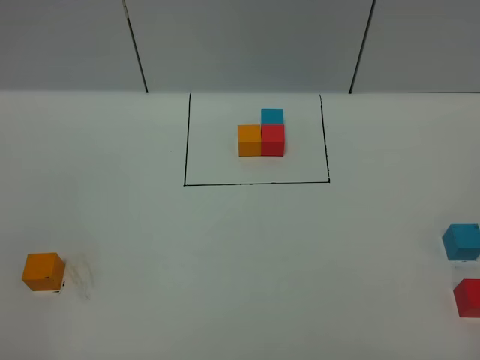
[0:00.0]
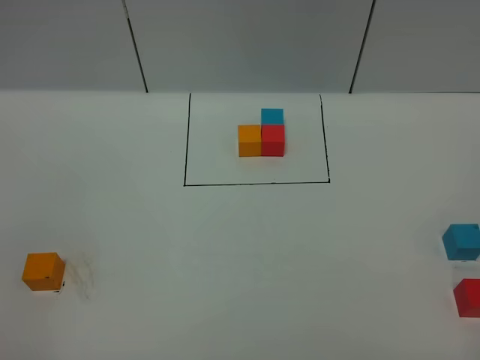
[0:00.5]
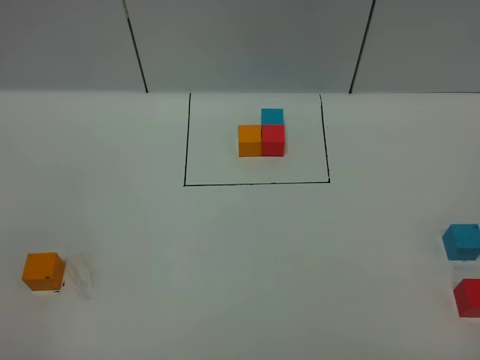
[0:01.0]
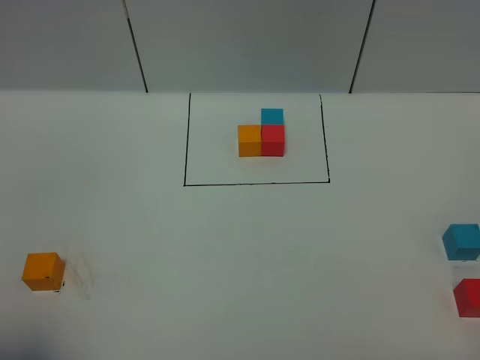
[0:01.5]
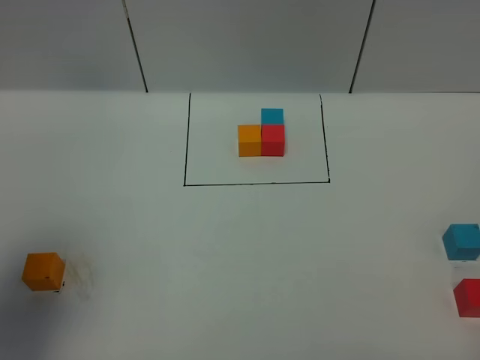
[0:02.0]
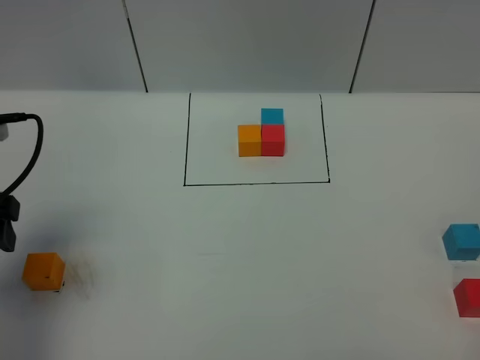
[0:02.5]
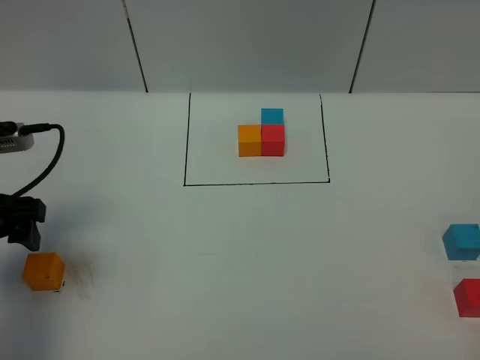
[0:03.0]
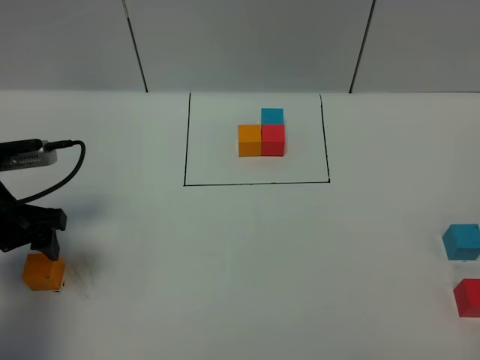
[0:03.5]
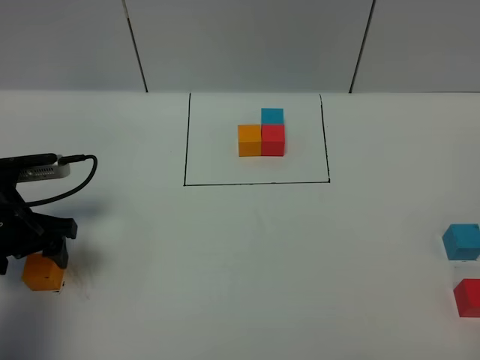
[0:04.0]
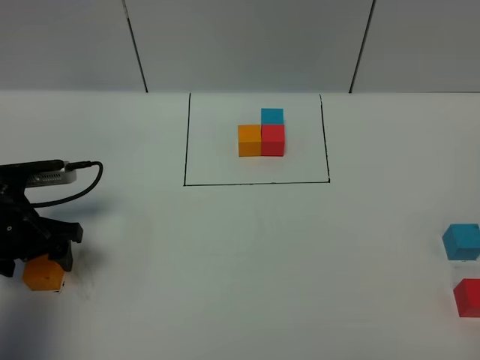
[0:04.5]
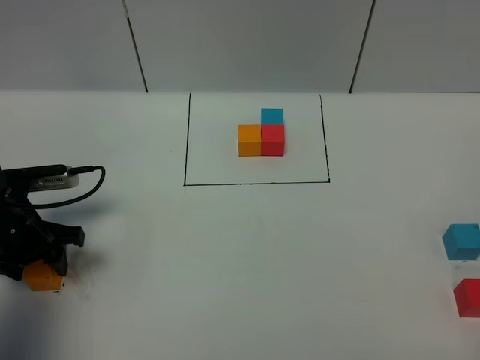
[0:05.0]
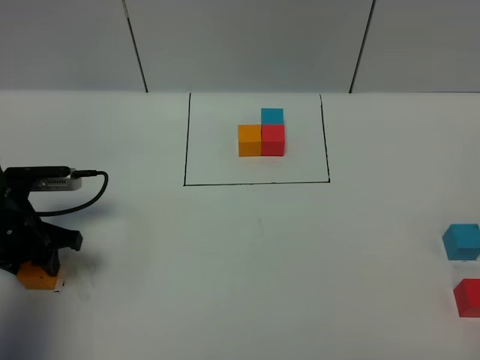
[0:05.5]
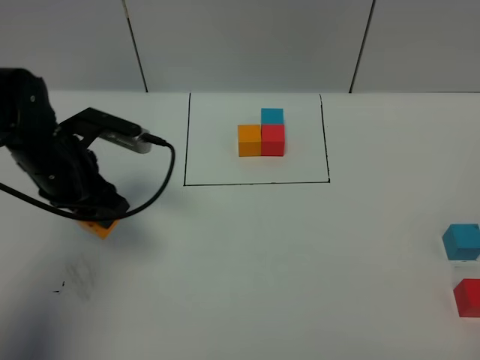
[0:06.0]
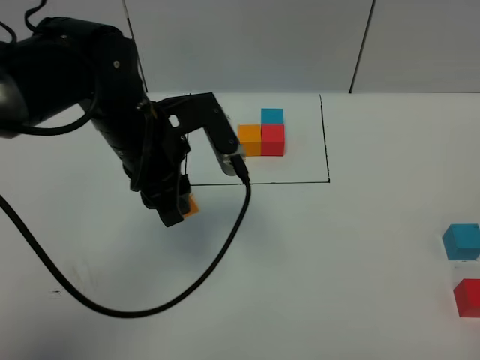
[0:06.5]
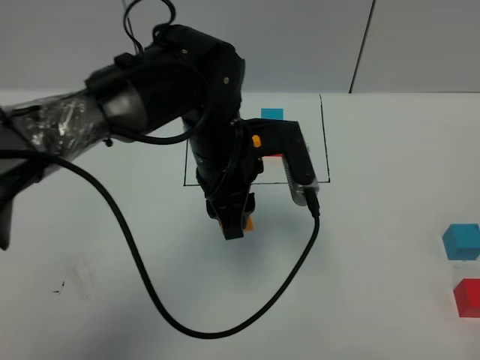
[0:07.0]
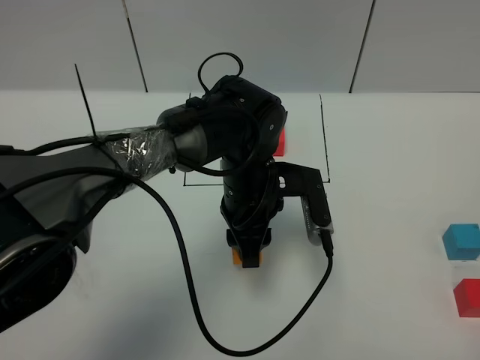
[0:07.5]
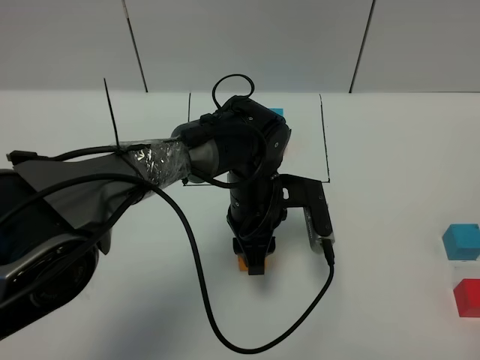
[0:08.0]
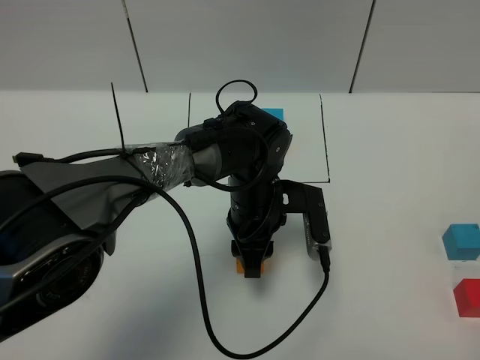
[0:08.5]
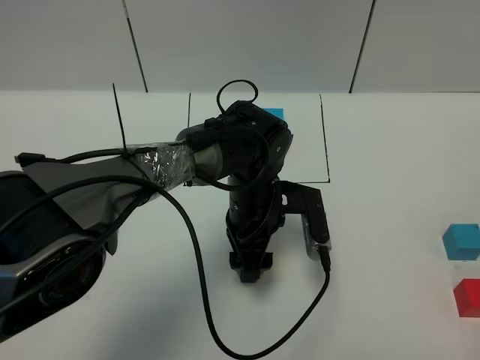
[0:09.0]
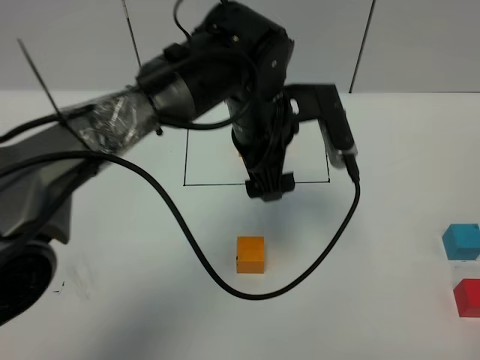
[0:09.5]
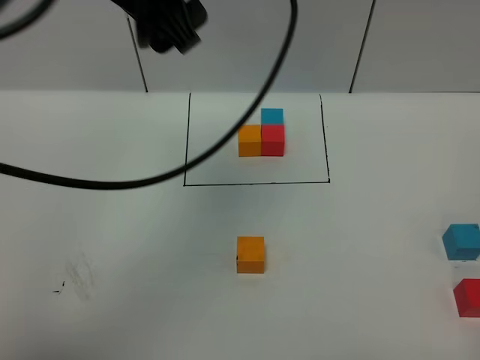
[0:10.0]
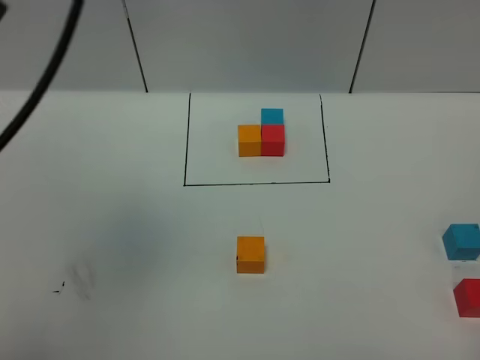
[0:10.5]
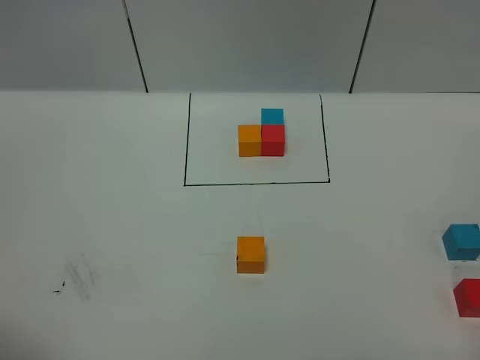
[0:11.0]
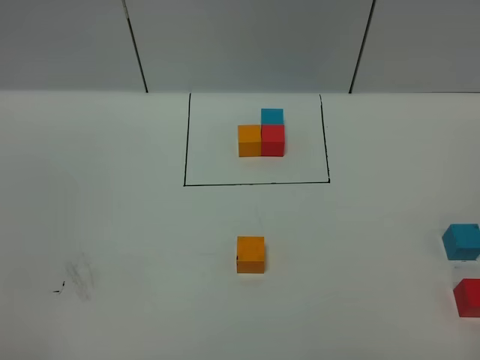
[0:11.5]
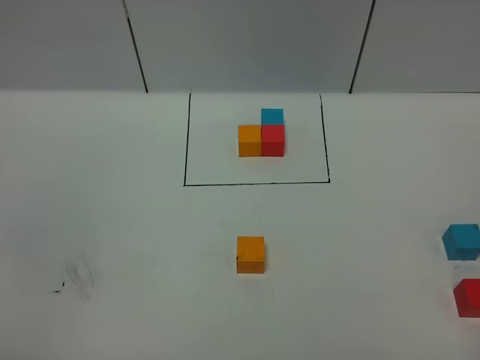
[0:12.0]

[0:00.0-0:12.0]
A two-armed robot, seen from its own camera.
Task of the whole recording: According to the building block template in front, assemble the scattered blocks together.
Step, 0:02.5 to 0:09.0: Put the orange cube in the center of the table.
0:00.0 to 0:02.0: The left gripper travels forward by roughly 20 cm, and opens its fingers.
0:02.0 to 0:04.0: The left gripper moves downward and forward, about 20 cm.
0:04.0 to 0:06.0: The left gripper moves to the right, about 10 cm, and closes.
0:06.0 to 0:08.0: The left gripper travels to the right by approximately 25 cm.
0:08.0 to 0:10.0: The left gripper is displaced upward by about 30 cm, and opens its fingers.
0:10.0 to 0:12.0: The left gripper goes some 40 cm backward, to the left and downward.

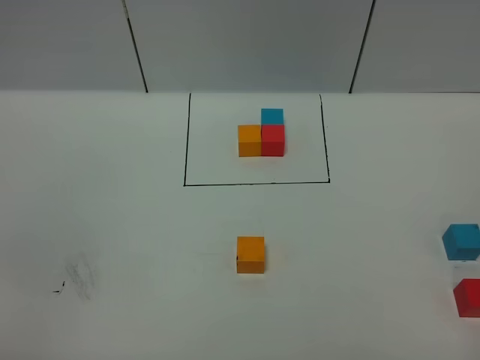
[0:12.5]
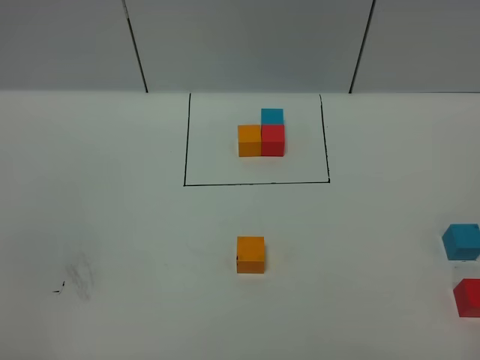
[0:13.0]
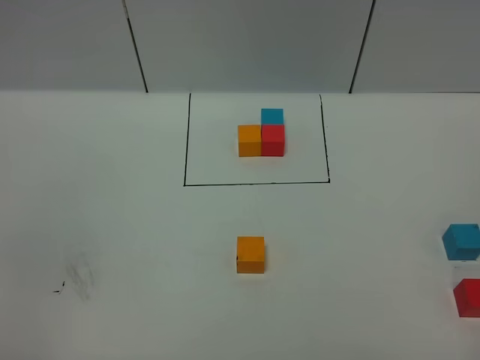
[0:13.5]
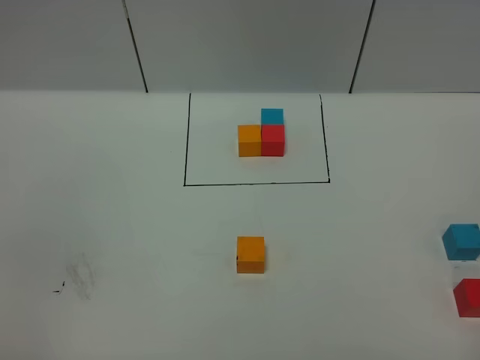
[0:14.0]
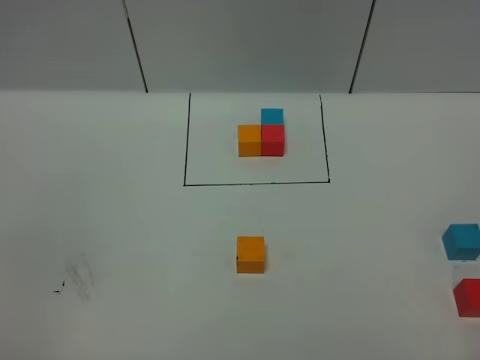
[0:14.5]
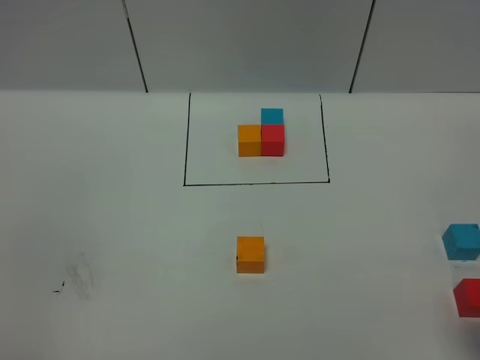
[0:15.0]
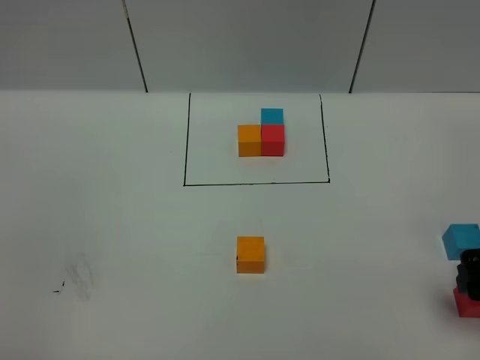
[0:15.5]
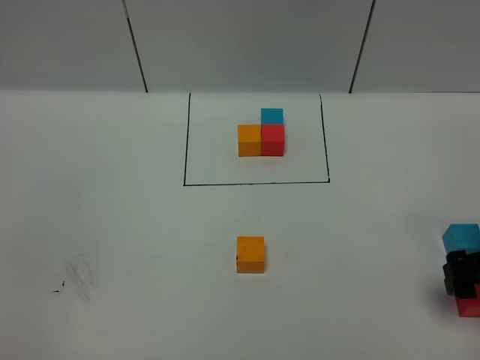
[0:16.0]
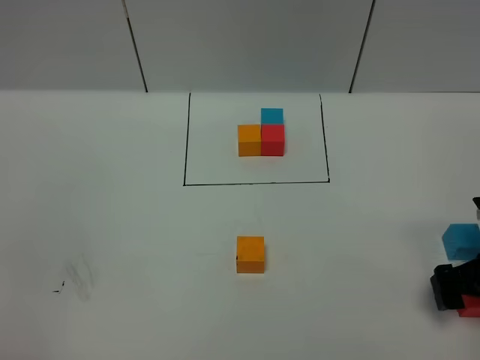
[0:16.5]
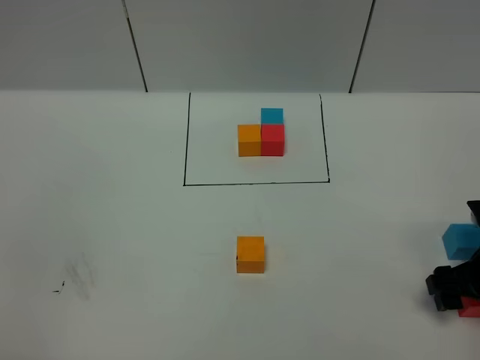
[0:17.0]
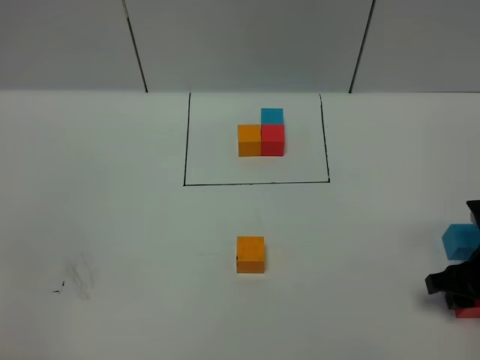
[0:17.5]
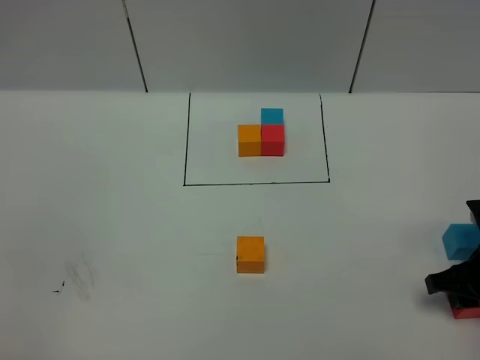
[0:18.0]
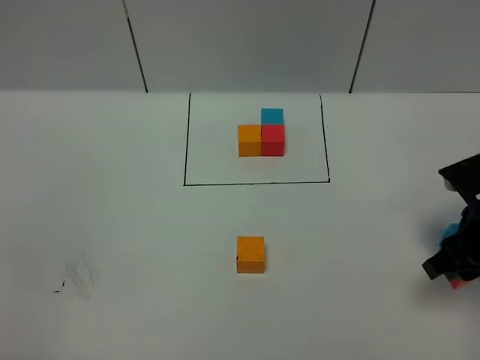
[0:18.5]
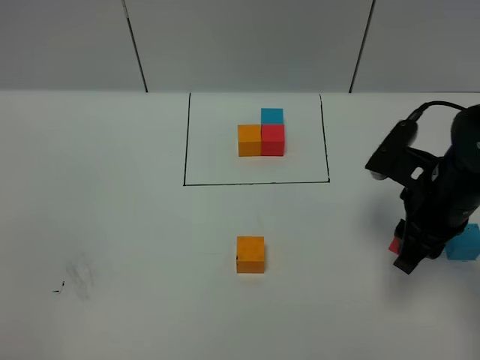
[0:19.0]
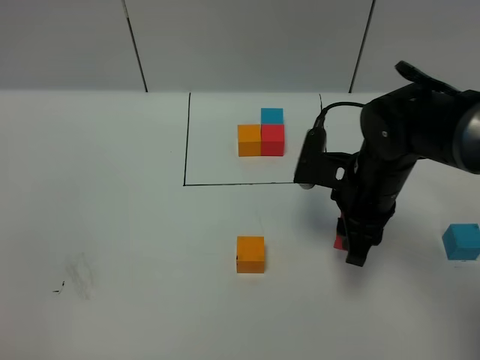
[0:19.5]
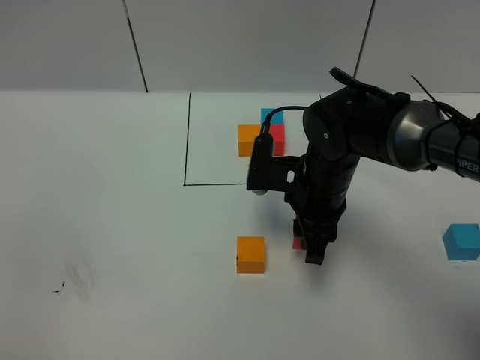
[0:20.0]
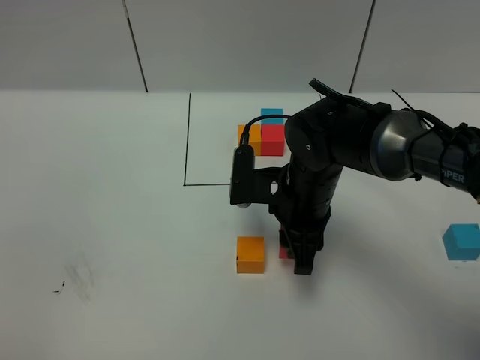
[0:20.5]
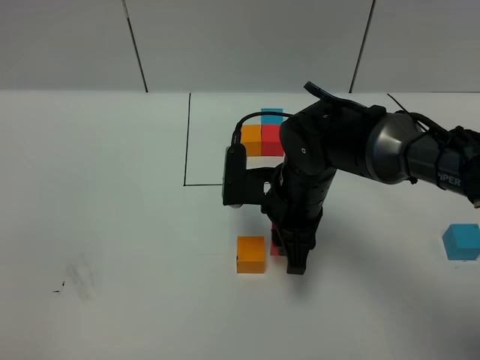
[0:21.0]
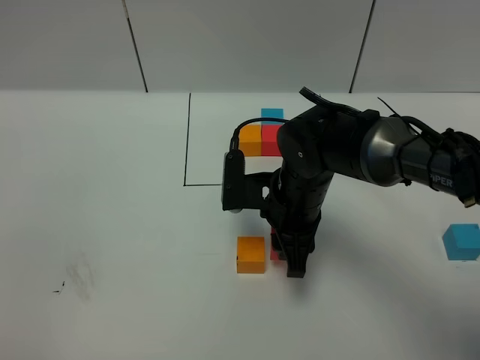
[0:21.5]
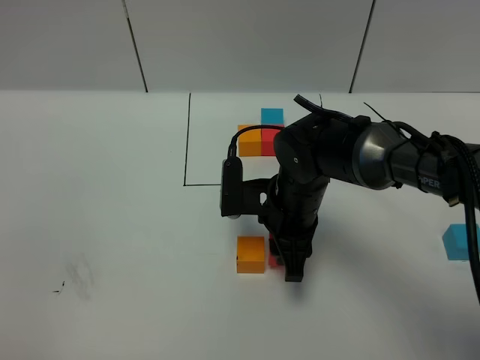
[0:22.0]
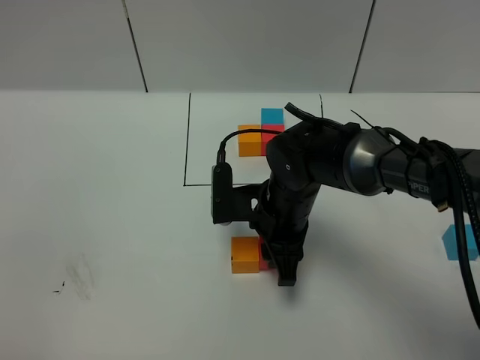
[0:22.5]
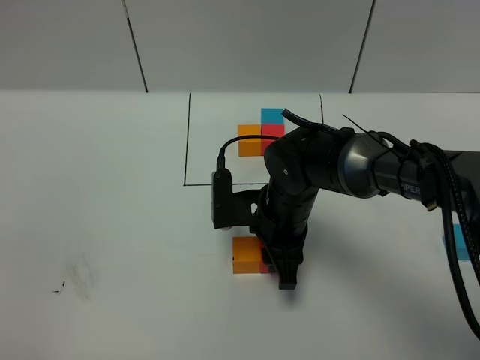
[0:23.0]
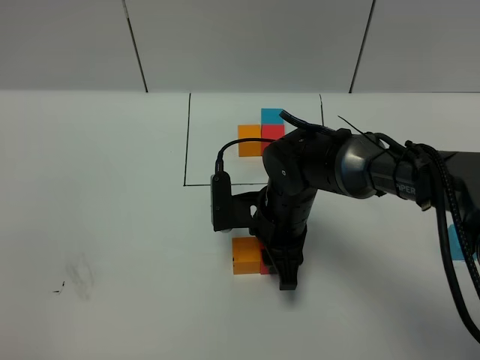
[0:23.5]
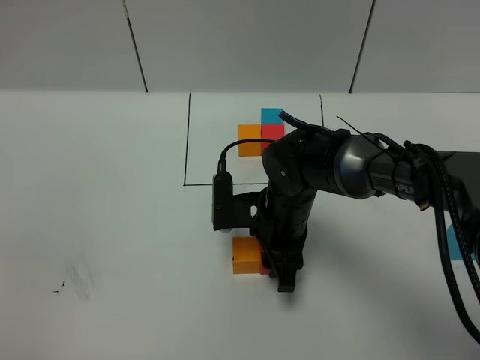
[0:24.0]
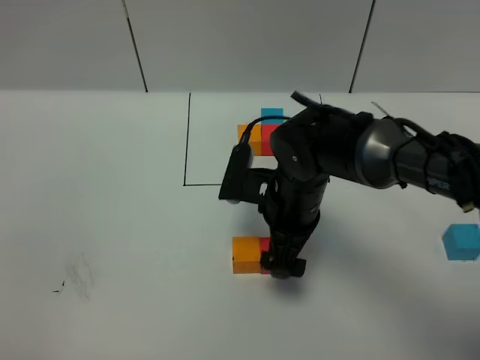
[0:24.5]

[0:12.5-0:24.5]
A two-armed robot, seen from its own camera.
Task of the whole recording: According to the building block template in front, assemble the scattered blocks together.
Step, 0:12.5 to 0:24.0: Put the red cube on the right of the orange cube.
0:14.5 to 0:16.5: The right gripper shifts some 25 cm forward and downward.
0:16.5 to 0:18.5: The right gripper moves approximately 5 cm, and closes its fingers.
0:18.5 to 0:20.5: The right gripper heads to the left, covering approximately 20 cm.
0:20.5 to 0:22.5: The grippers make only small movements.
0:22.5 to 0:24.5: The right gripper opens its fingers.

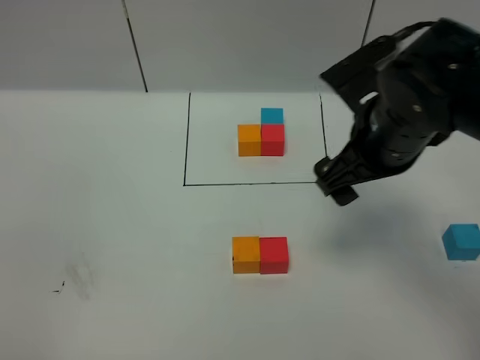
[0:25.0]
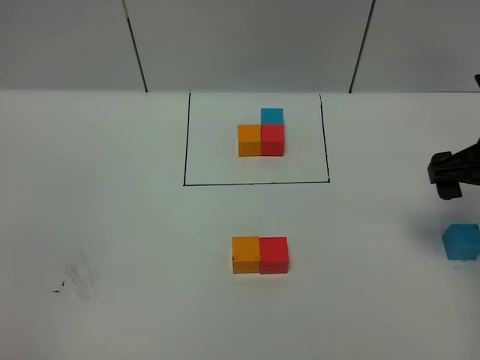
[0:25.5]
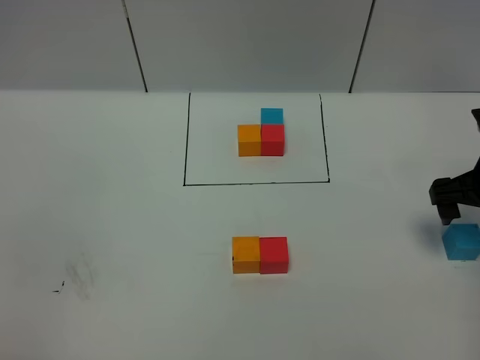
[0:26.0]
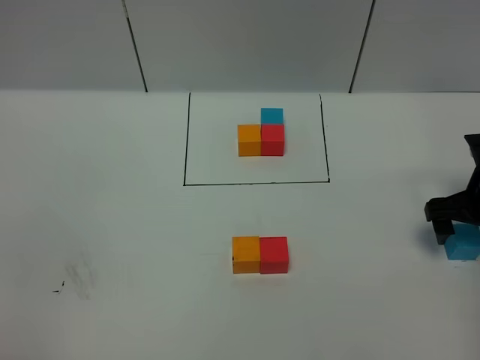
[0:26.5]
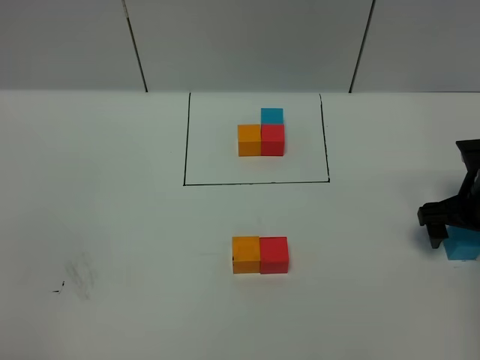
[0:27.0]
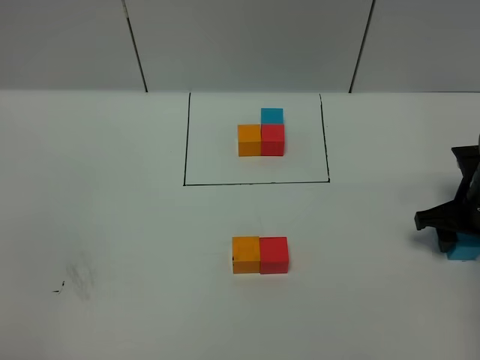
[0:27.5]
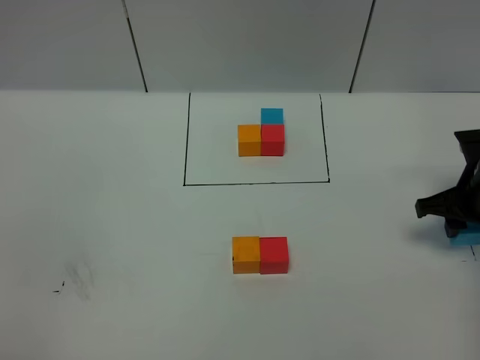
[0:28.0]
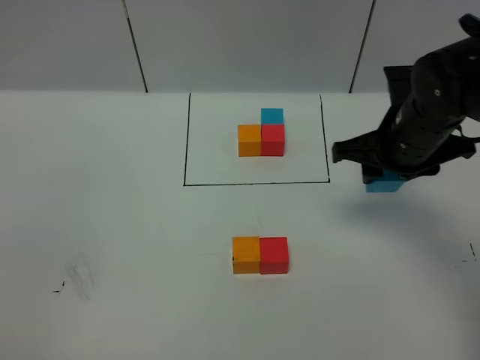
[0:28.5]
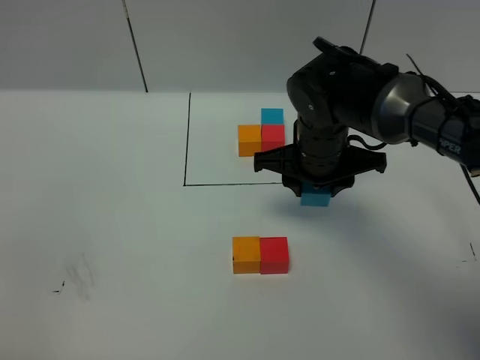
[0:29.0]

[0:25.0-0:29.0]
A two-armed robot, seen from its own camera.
Task of the whole recording: According to the building block template in front, assemble the scattered blocks together.
0:25.0 to 0:27.0: The right gripper heads to the right and downward, covering approximately 20 cm.
0:27.0 to 0:29.0: The right gripper is displaced to the left by approximately 20 cm, and closes up.
